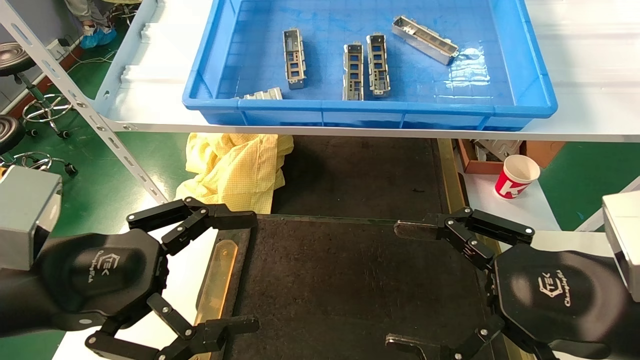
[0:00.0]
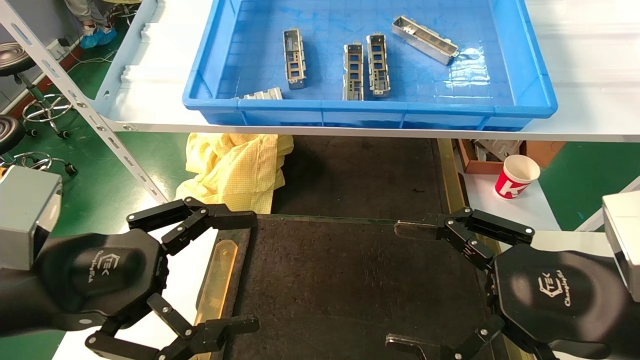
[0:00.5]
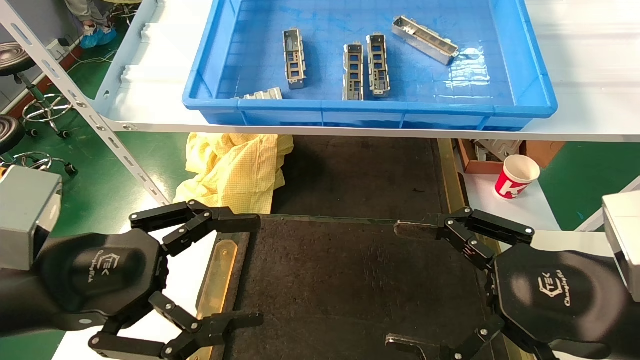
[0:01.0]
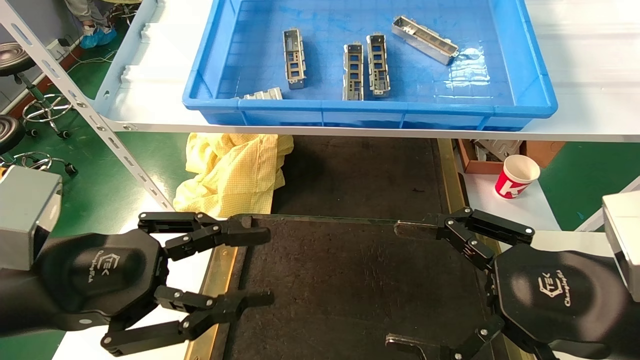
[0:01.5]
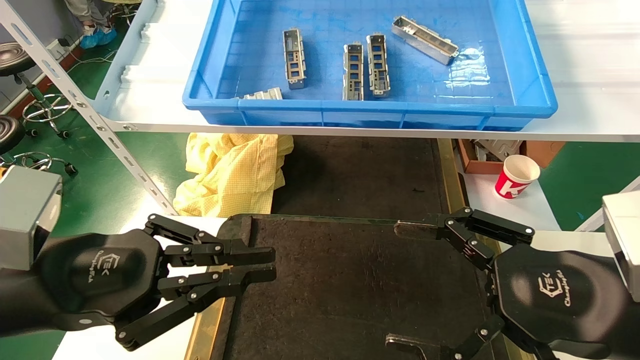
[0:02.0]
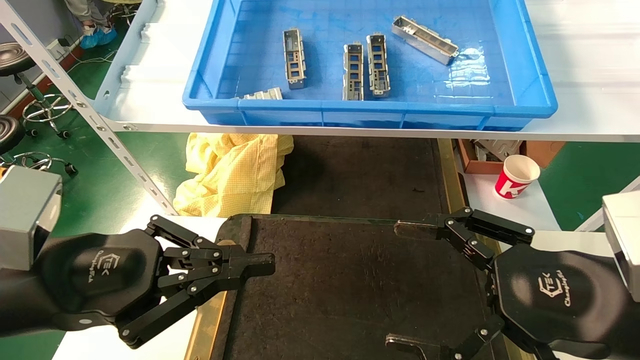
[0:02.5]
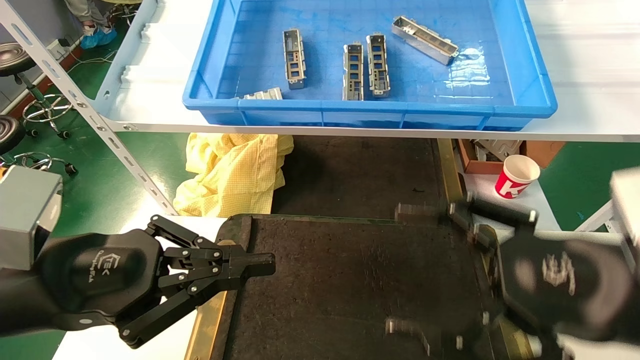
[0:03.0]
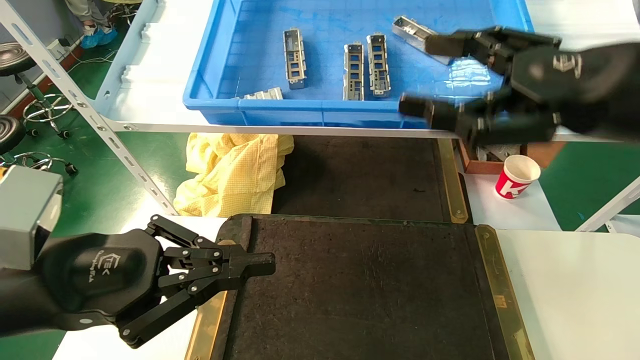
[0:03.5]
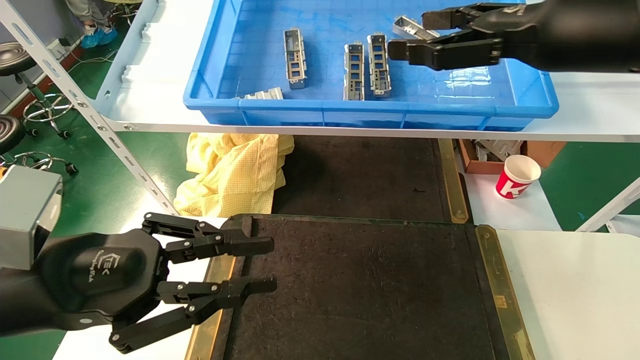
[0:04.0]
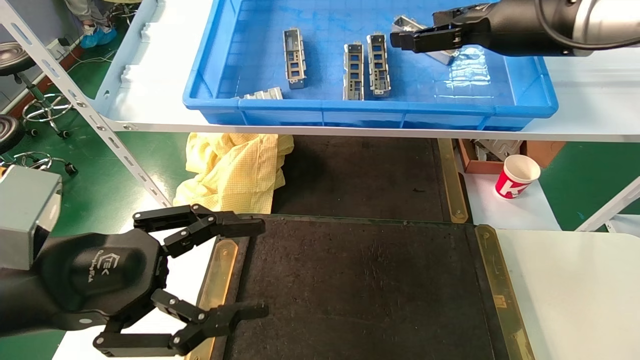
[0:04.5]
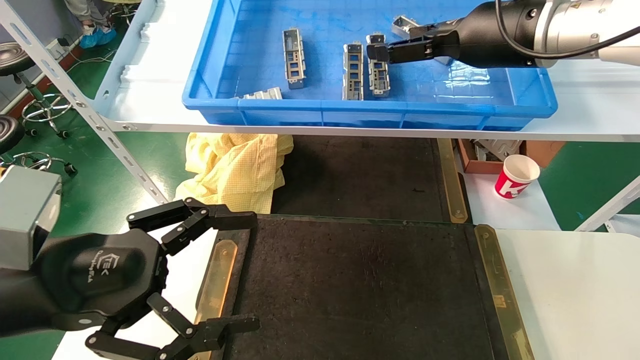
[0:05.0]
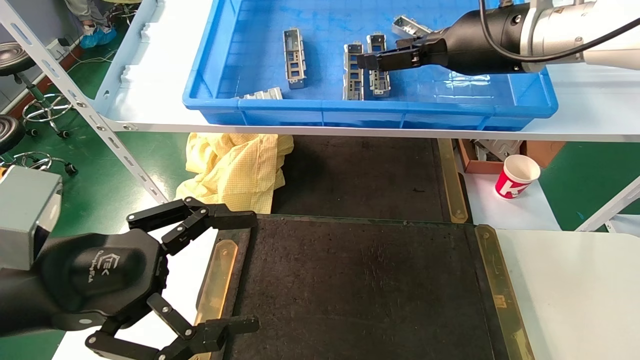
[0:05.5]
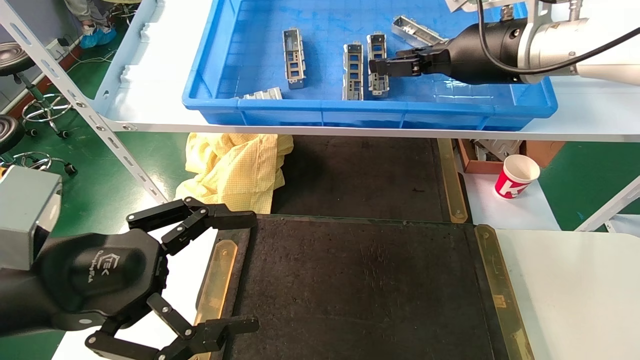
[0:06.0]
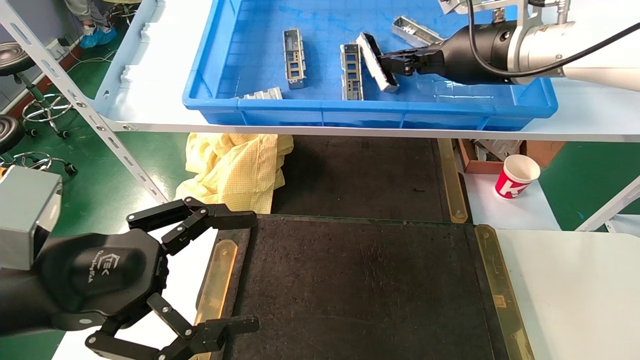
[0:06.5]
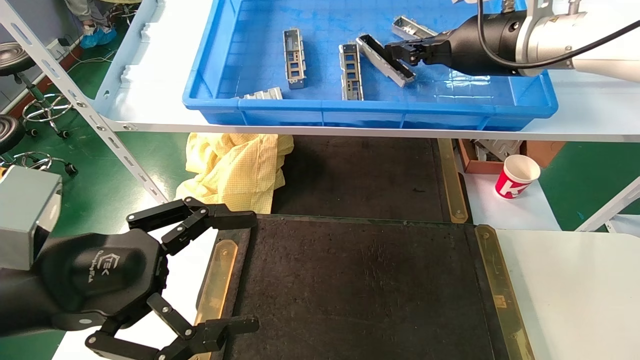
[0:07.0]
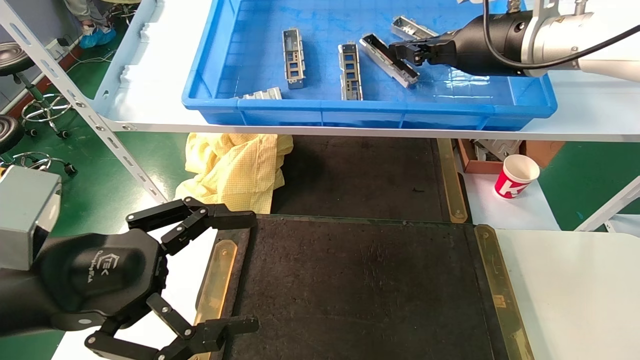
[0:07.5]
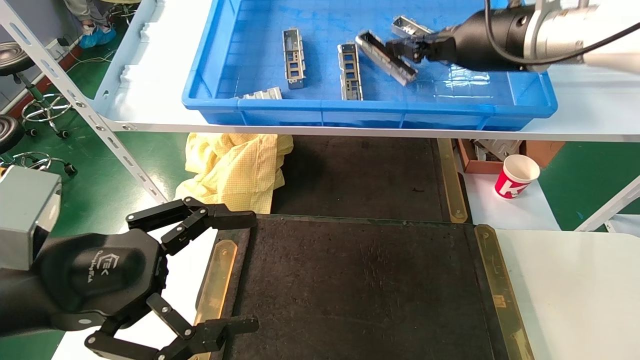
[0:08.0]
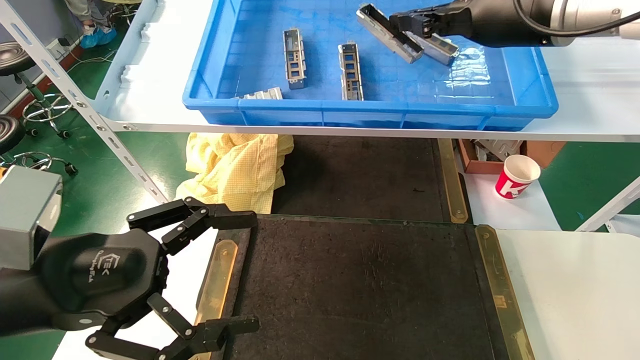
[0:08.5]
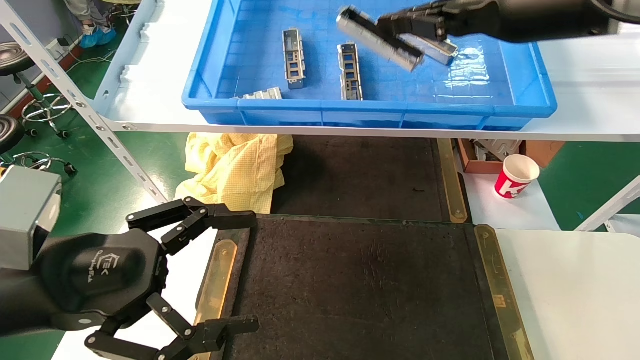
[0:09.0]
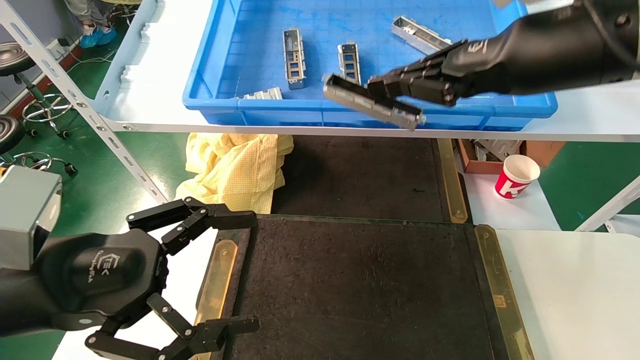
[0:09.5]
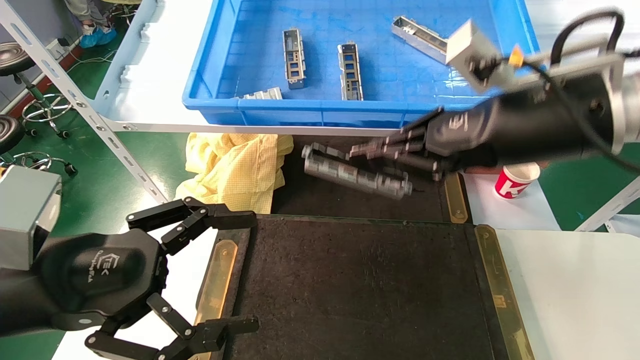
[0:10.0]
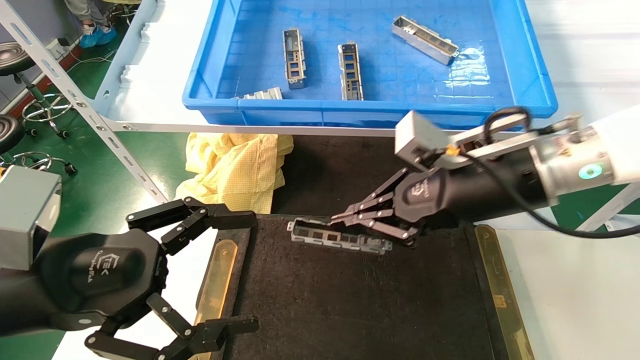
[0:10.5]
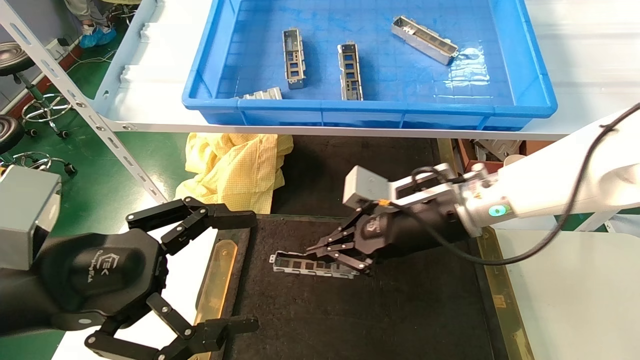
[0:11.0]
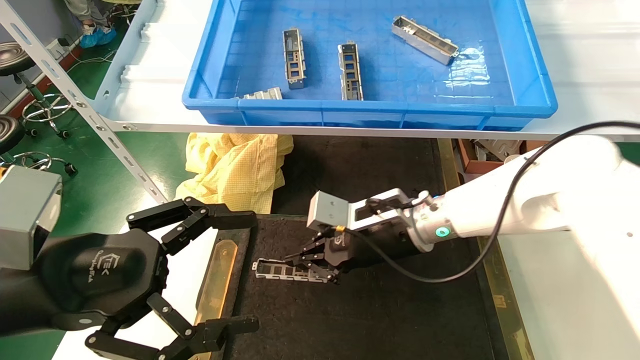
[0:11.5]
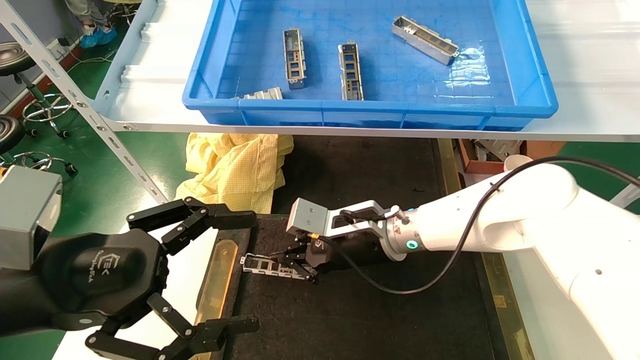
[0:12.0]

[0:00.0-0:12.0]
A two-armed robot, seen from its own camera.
Task of the whole recording: grasp the part and place them on the black container.
Step, 0:03.5 to 0:06.5: Pick up and lift the front USB bracket from the feeding area.
0:00.0 to 0:02.0: The left gripper closes up.
0:02.0 to 0:04.0: The right gripper goes some 25 cm upward and forward.
0:04.0 to 0:06.0: The left gripper opens its fingers. The right gripper goes some 10 cm forward and to the left.
0:06.0 to 0:08.0: The right gripper closes up.
0:08.0 to 0:10.0: The right gripper moves backward and downward, some 15 cm.
0:10.0 to 0:12.0: The right gripper is displaced downward, to the left and forward by roughly 25 cm.

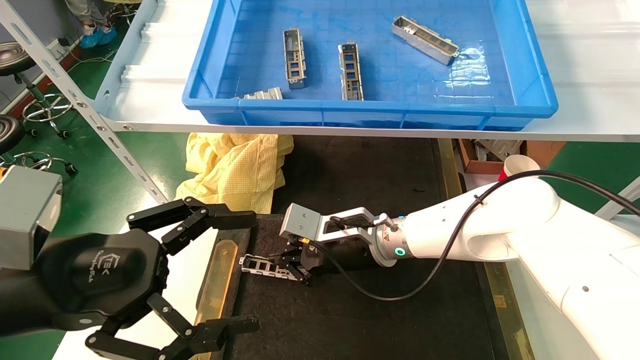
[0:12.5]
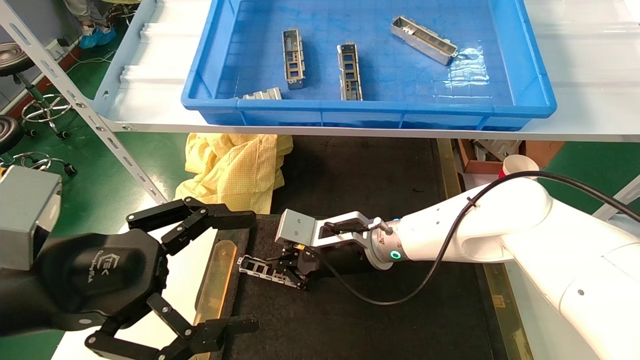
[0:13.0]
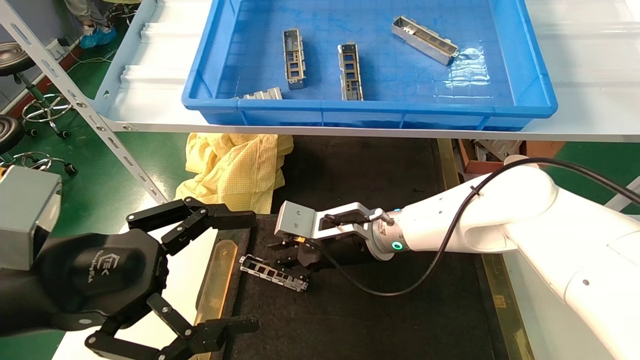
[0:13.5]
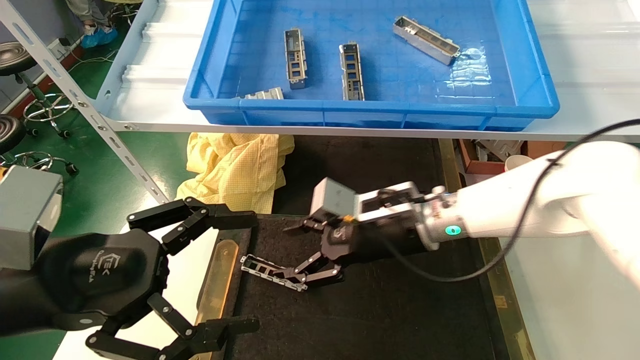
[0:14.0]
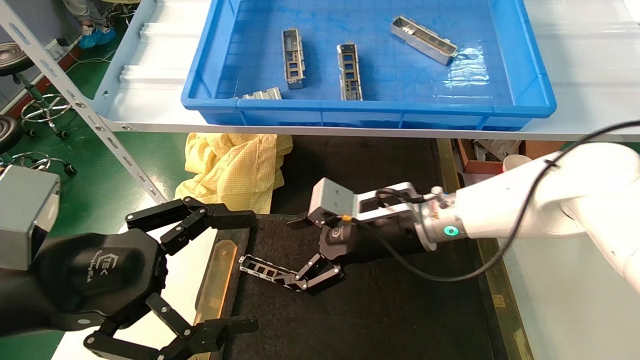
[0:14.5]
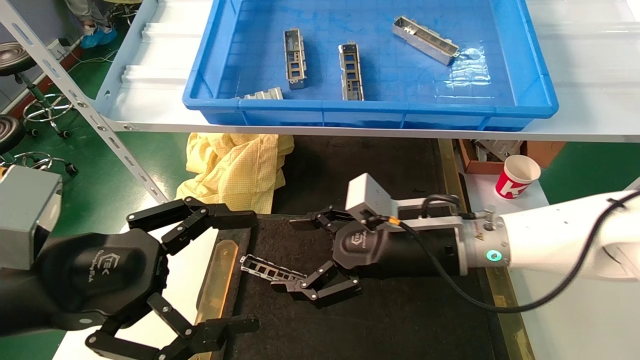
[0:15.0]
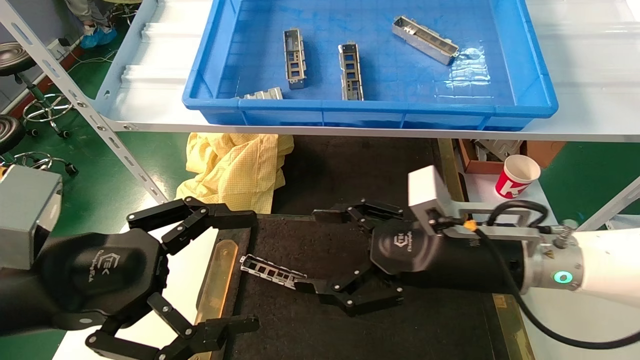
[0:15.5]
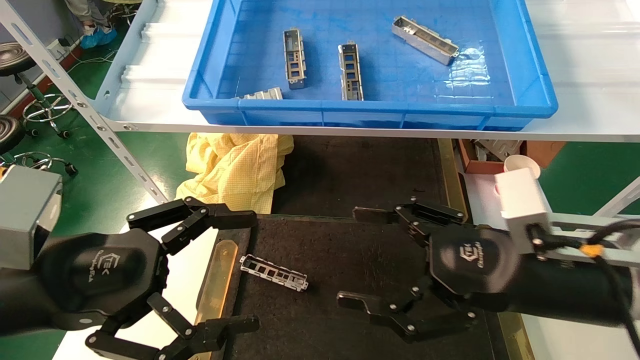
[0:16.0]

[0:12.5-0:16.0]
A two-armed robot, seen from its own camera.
Task of the whole recording: grasp the part and place them on the black container.
0:12.5 to 0:14.5: The right gripper goes some 5 cm to the right, and opens up.
0:14.5 to 0:16.0: The right gripper travels backward and to the right by roughly 20 cm.
